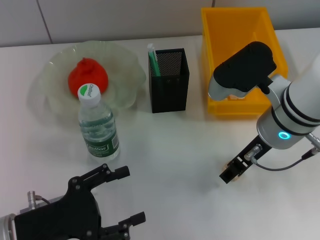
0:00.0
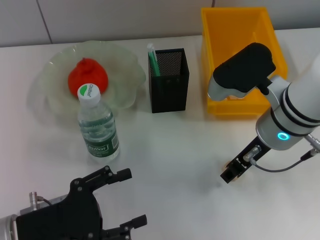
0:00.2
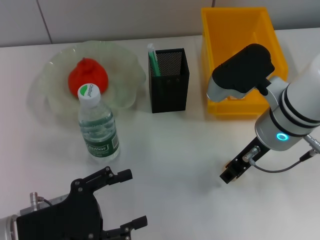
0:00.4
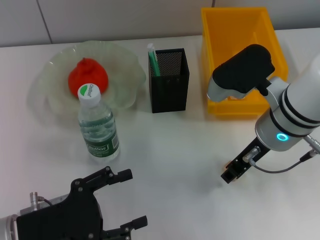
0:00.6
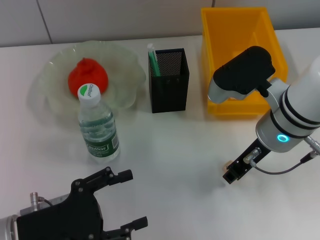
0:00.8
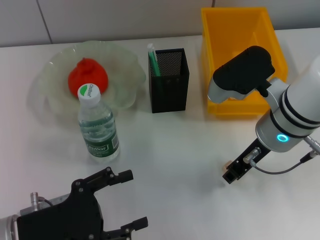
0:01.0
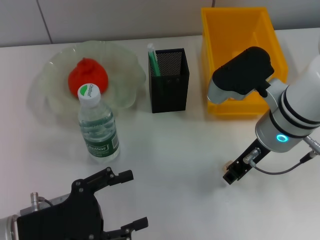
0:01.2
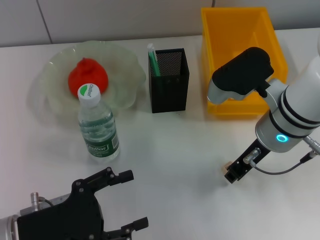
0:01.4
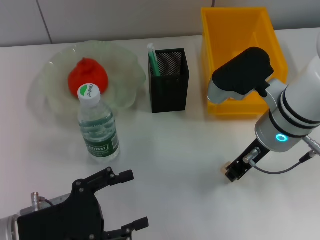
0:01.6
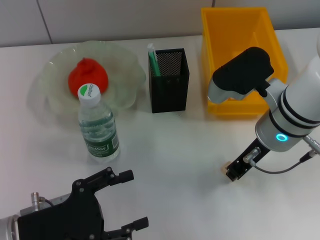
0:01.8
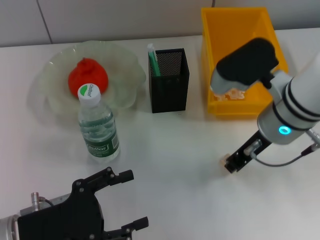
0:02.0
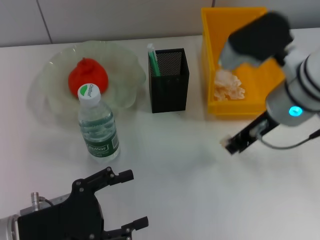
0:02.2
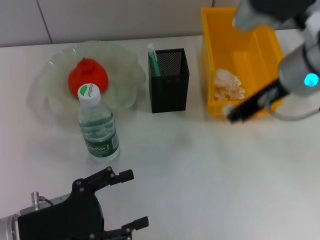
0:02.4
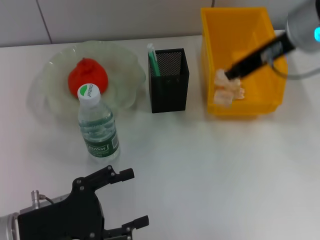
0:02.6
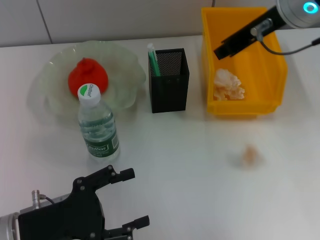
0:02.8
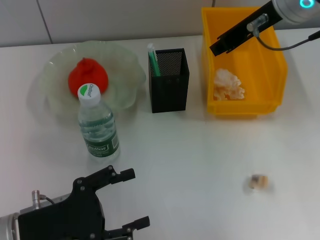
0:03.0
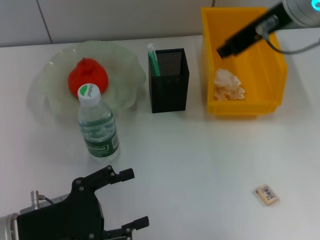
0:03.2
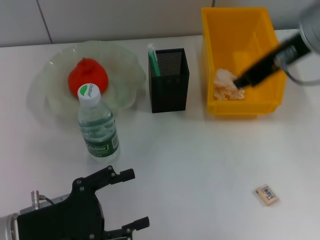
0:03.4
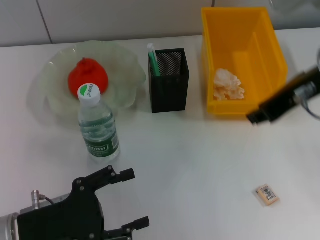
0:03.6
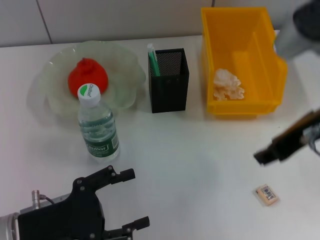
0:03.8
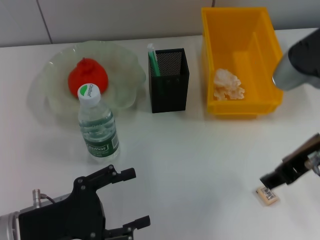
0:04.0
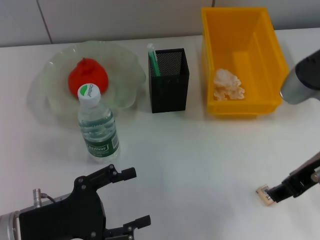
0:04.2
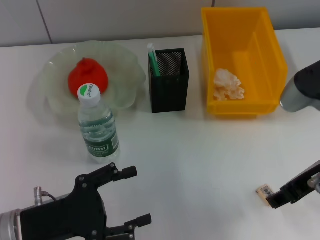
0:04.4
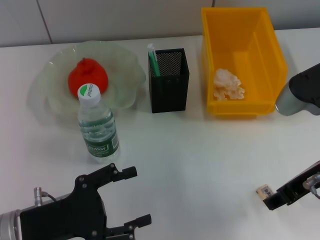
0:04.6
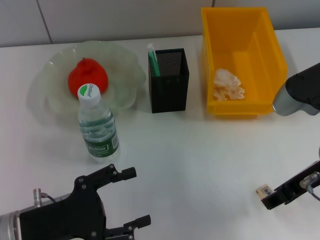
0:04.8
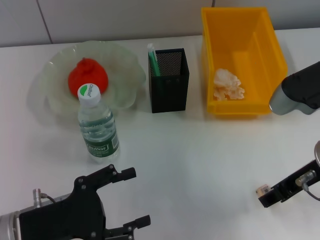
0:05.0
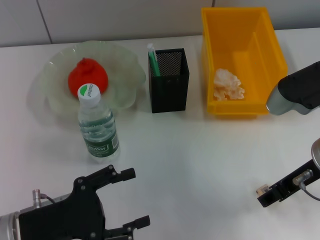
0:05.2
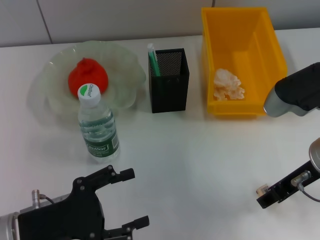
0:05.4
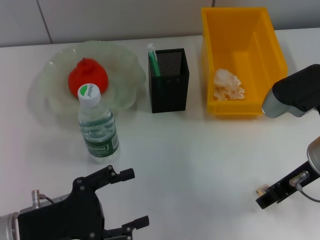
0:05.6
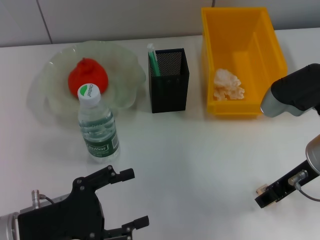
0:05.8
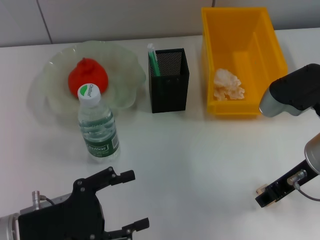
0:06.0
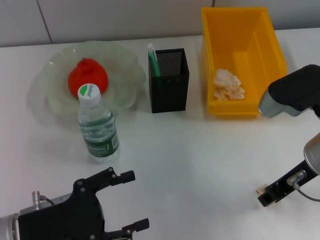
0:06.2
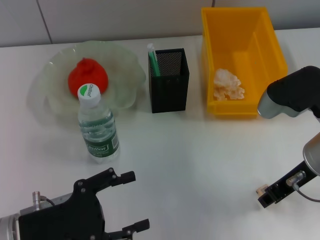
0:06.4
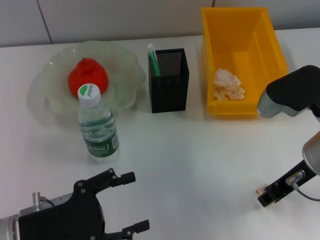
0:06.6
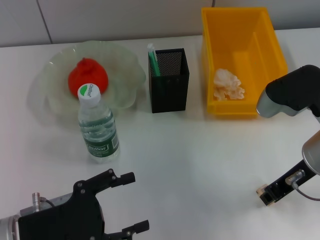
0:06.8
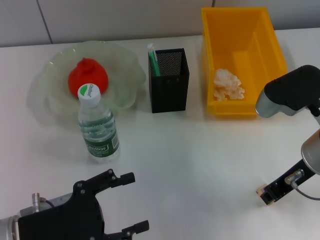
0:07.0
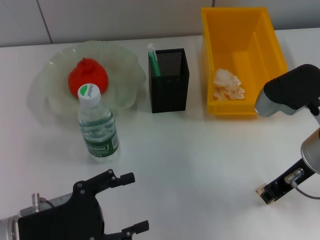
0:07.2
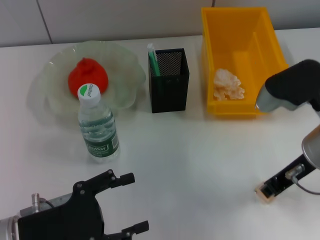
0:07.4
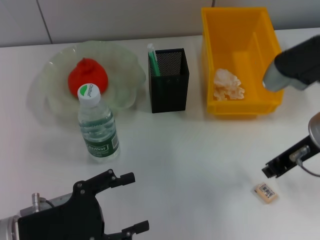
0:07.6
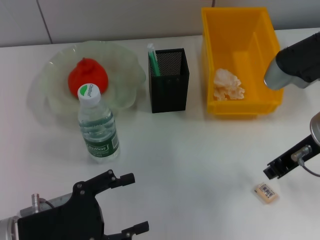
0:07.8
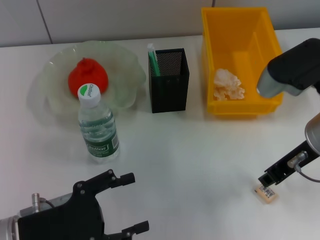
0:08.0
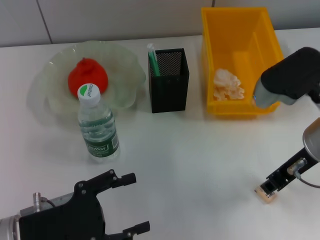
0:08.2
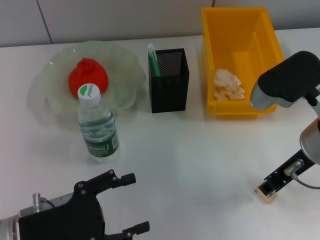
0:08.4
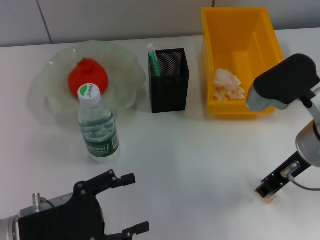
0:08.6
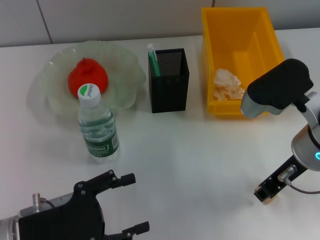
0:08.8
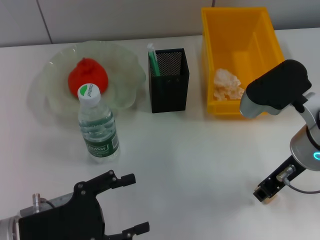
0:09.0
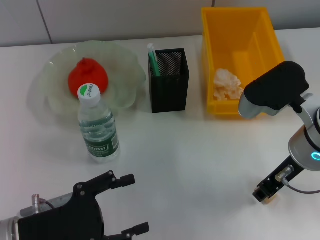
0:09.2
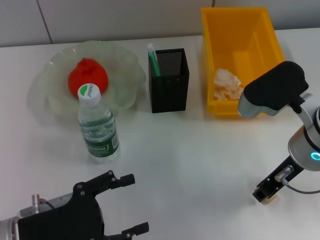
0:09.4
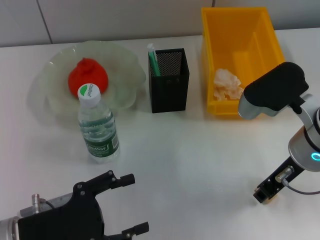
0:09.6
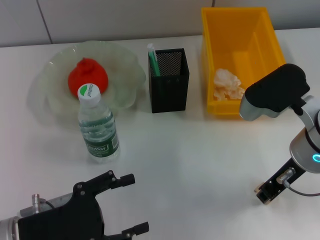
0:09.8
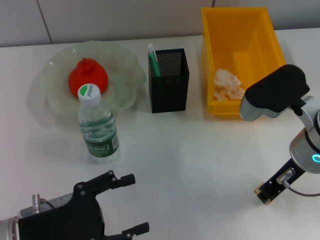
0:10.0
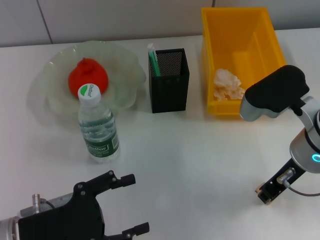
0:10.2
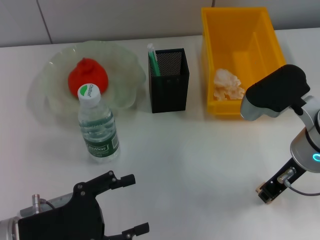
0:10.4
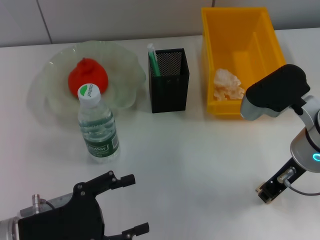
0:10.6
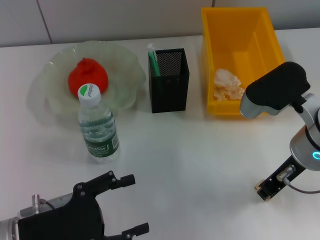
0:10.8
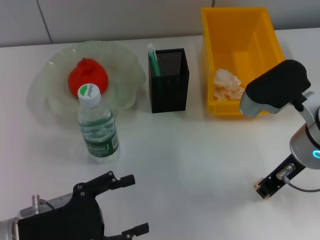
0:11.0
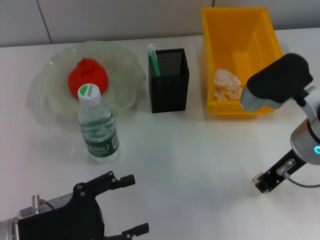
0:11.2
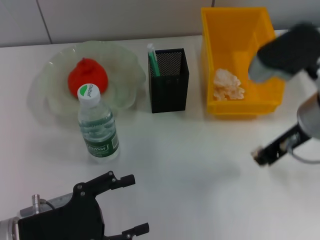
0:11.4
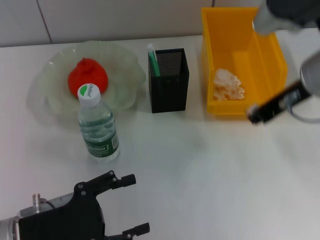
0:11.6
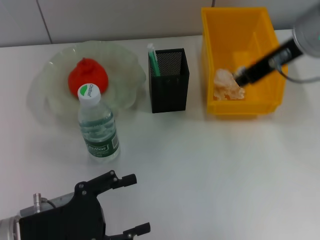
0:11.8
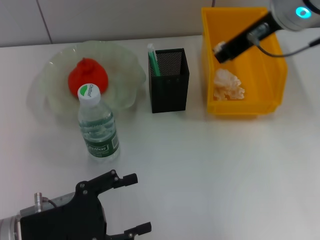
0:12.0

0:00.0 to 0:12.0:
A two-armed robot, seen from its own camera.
Step, 0:00.0 to 0:10.6: Grab the eraser with the right hand.
0:00.0 to 0:01.6: The right gripper closes its fingers.
0:01.6 to 0:03.0: The right gripper travels upward by roughly 15 cm.
0:03.0 to 0:04.4: The right gripper moves backward, downward and to the right, some 15 cm, and opens its fingers.
0:04.4 to 0:06.0: The grippers make only small movements.
0:06.0 to 0:07.6: The right gripper closes its fingers.
0:07.6 to 0:09.0: The right gripper opens.
0:09.0 to 0:10.4: Both grippers stay put.
0:10.4 to 0:12.0: The right gripper travels upward and forward by roughly 15 cm.

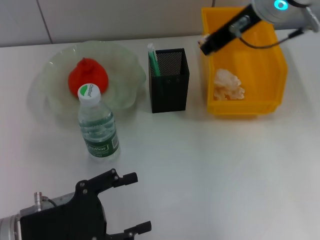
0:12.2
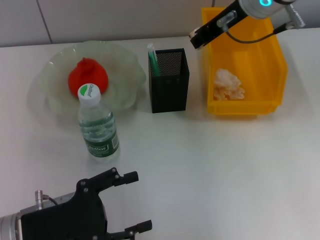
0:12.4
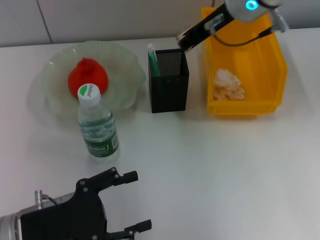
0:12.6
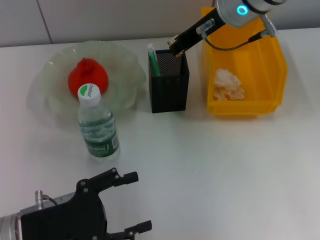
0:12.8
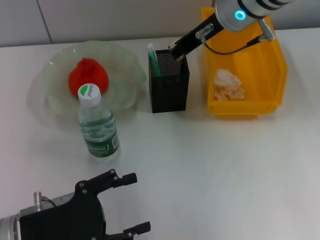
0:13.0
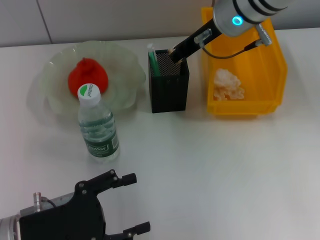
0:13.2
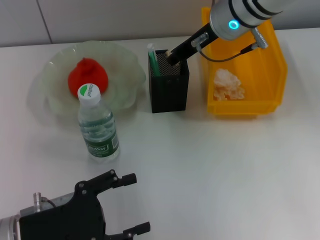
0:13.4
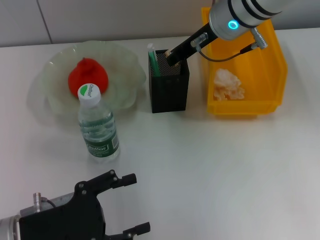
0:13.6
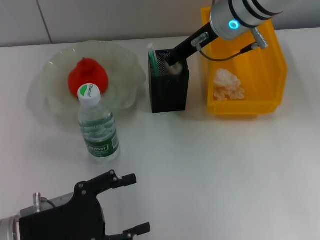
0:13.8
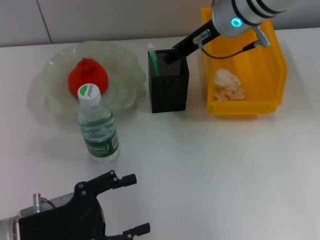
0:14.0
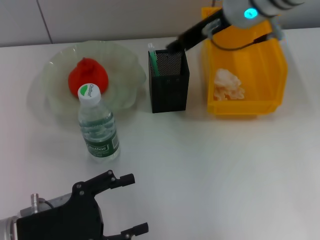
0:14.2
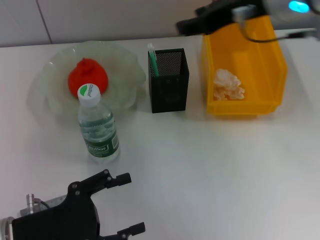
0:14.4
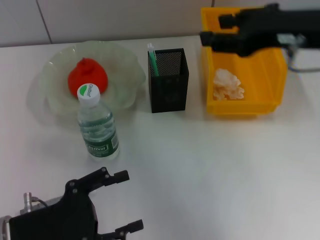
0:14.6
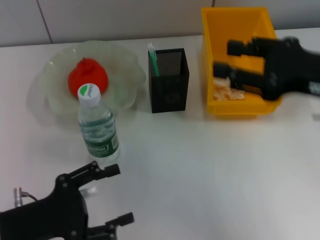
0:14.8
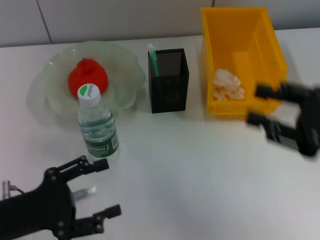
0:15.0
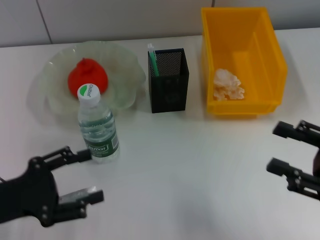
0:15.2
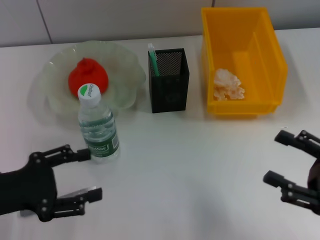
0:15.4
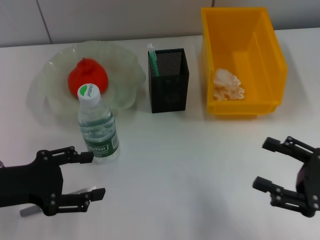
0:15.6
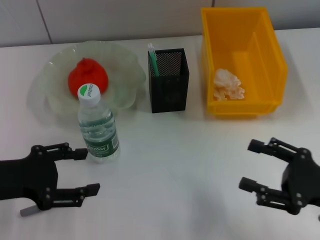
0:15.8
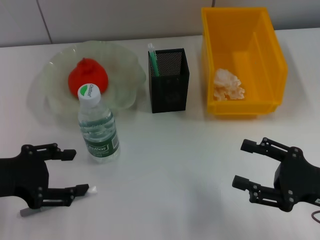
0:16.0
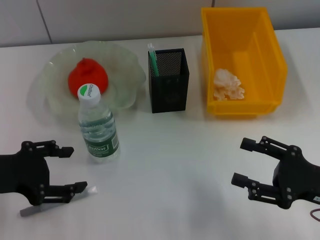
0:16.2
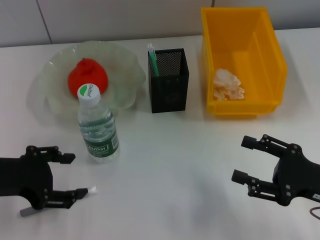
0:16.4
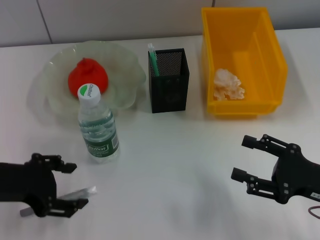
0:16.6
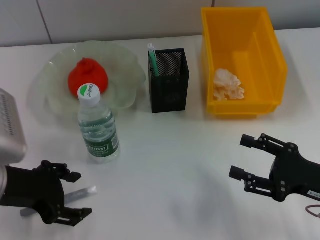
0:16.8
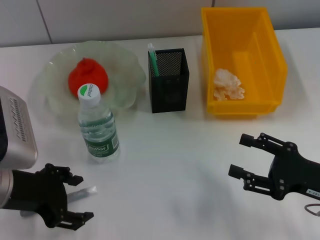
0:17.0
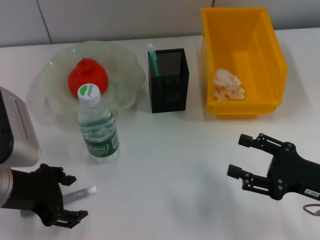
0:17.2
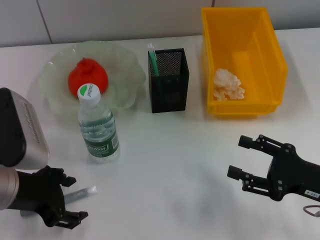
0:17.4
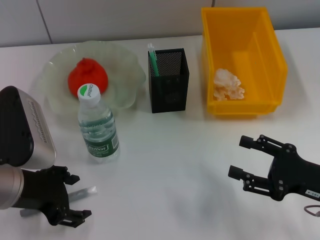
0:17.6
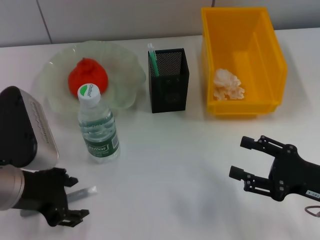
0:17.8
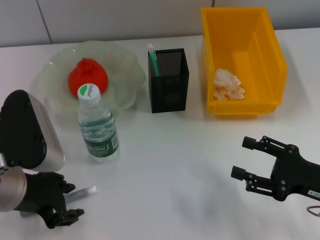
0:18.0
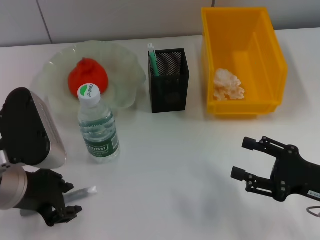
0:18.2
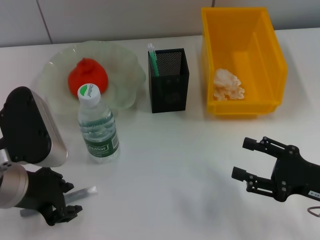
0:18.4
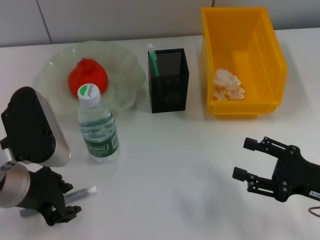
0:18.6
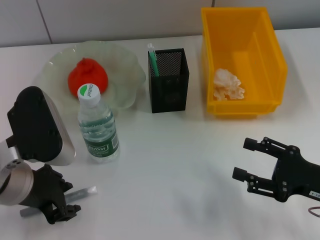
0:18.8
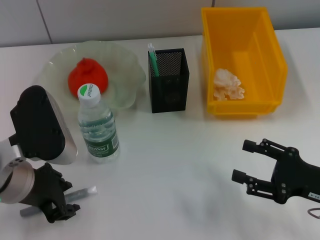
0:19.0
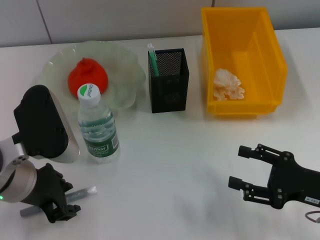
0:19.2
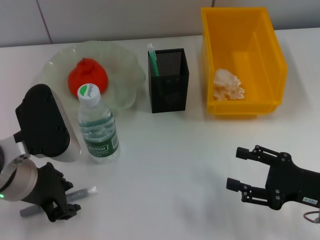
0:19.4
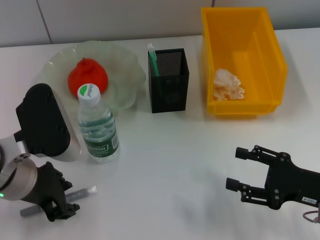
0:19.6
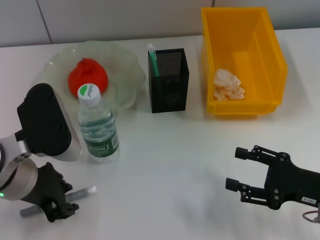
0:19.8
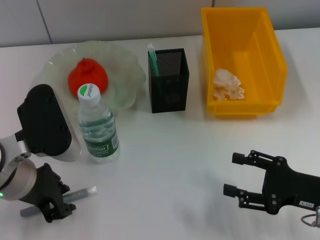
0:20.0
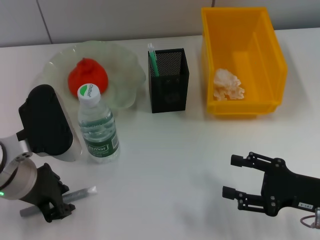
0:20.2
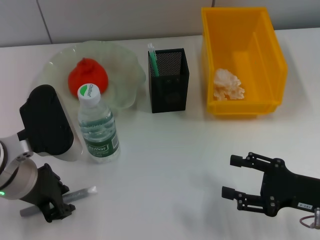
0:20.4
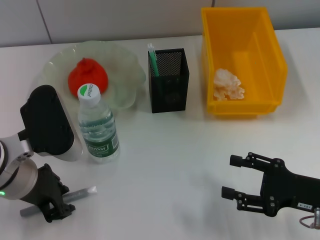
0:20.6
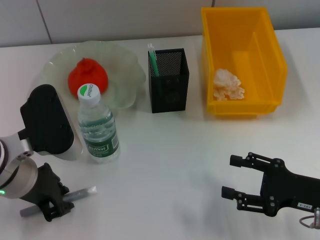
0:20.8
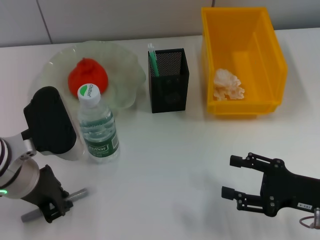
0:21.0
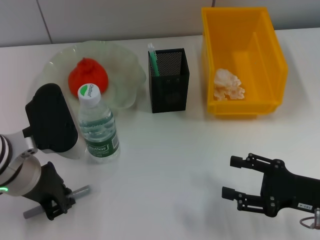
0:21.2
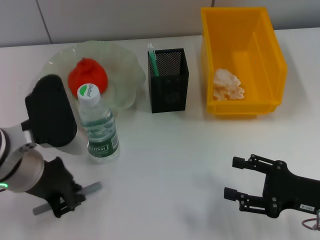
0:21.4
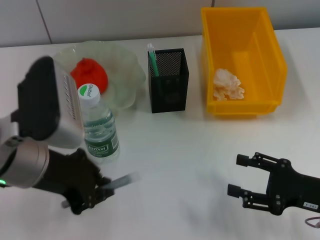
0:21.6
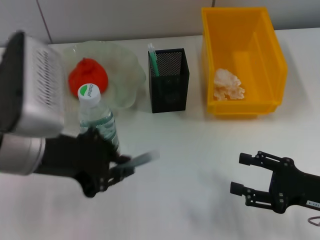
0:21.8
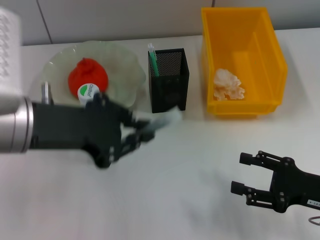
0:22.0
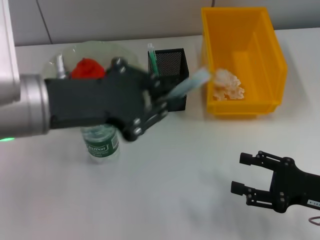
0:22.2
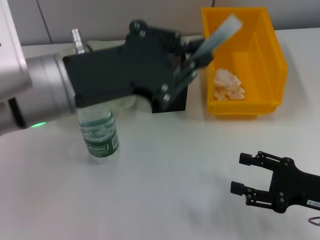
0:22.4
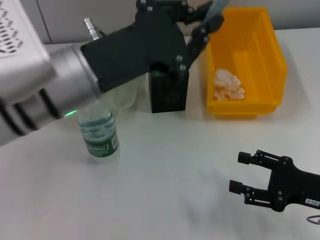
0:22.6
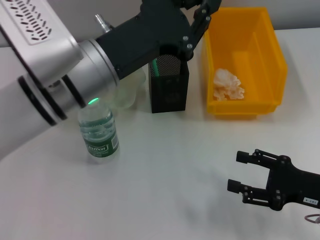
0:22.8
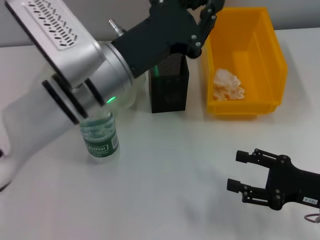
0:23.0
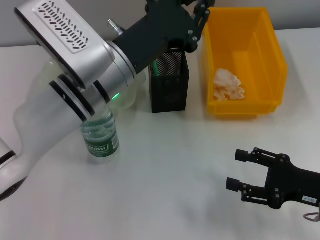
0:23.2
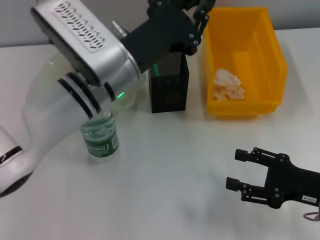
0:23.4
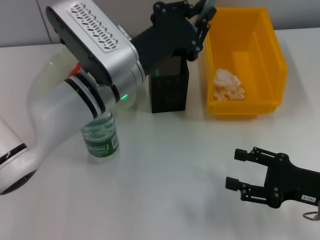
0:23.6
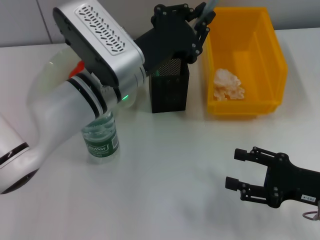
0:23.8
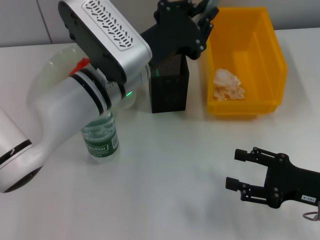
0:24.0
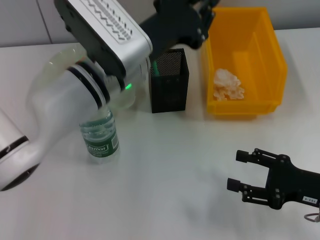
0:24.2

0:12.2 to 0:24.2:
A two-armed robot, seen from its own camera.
Step, 0:12.2 to 0:13.8: Put the eraser into the pen holder with the right hand.
Step, 0:14.2 to 0:20.8: Grab the gray glue with the left hand.
0:12.2 to 0:13.8: The right gripper is displaced downward by about 5 cm.
0:13.8 to 0:15.2: The right gripper goes approximately 35 cm backward, to the right and downward, and opens its fingers. Meanwhile the left gripper goes approximately 5 cm to the left.
0:15.2 to 0:16.6: The left gripper goes some 5 cm upward. Meanwhile the right gripper moves downward, approximately 5 cm.
0:16.6 to 0:18.2: The left gripper shifts some 5 cm to the right.
0:18.2 to 0:19.8: The grippers move only a little.
0:19.8 to 0:21.2: The left gripper closes up.
0:21.2 to 0:22.6: The left gripper heads upward and to the right, covering about 10 cm.
0:22.6 to 0:24.2: The left gripper travels forward and to the right by approximately 10 cm.
